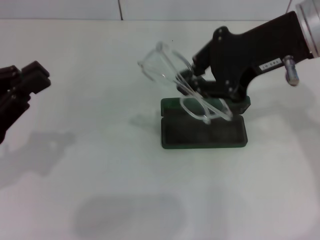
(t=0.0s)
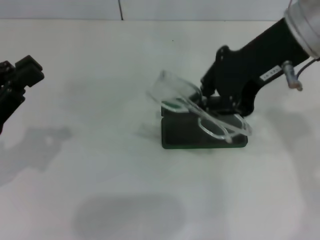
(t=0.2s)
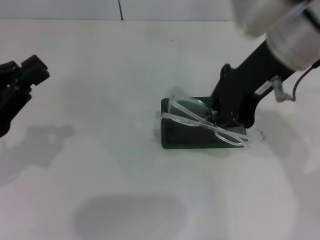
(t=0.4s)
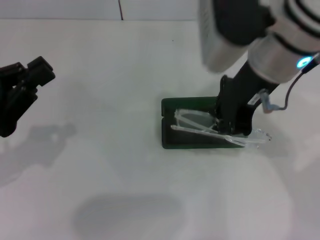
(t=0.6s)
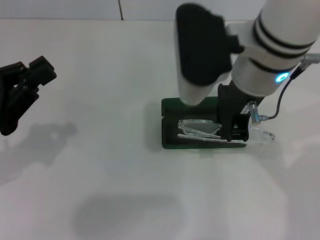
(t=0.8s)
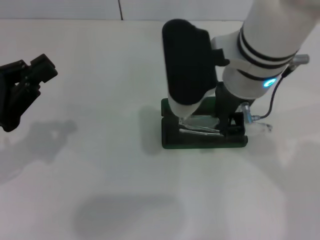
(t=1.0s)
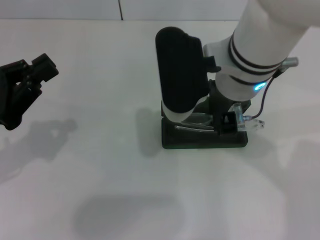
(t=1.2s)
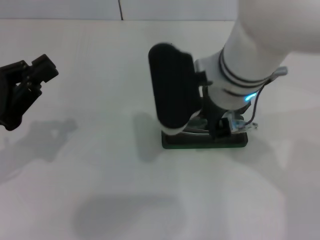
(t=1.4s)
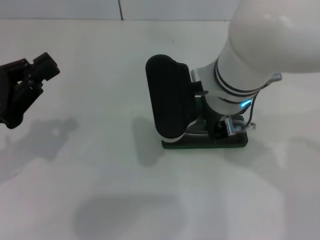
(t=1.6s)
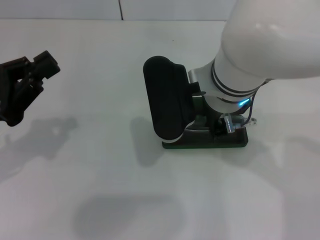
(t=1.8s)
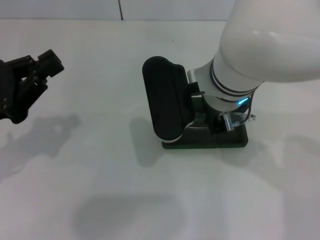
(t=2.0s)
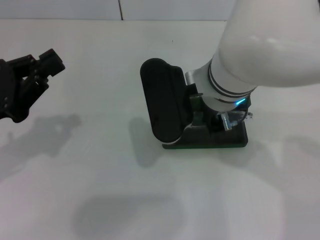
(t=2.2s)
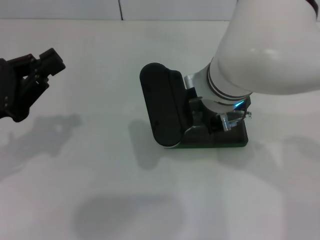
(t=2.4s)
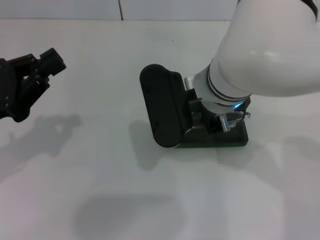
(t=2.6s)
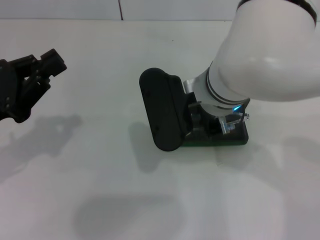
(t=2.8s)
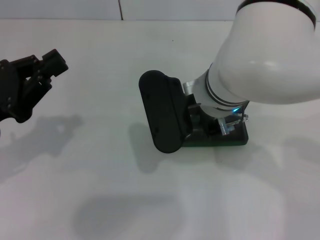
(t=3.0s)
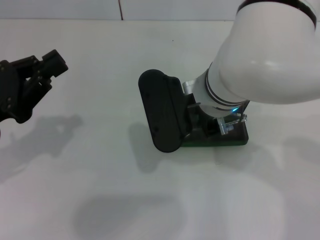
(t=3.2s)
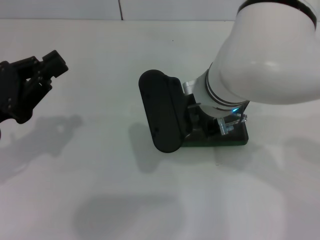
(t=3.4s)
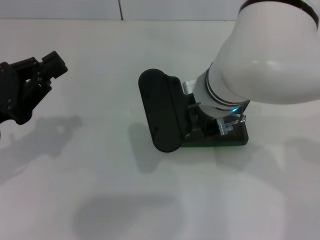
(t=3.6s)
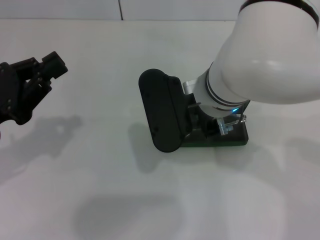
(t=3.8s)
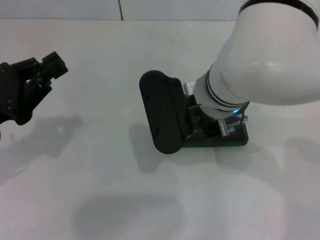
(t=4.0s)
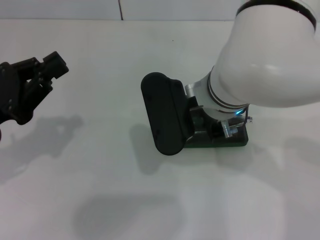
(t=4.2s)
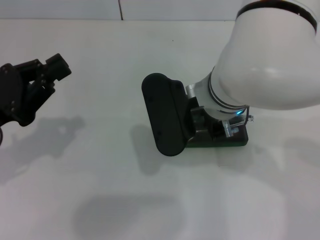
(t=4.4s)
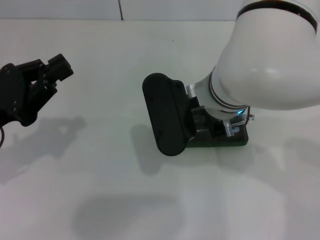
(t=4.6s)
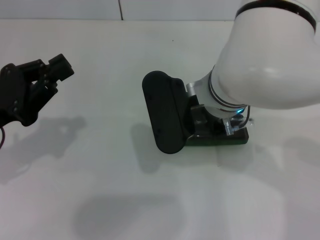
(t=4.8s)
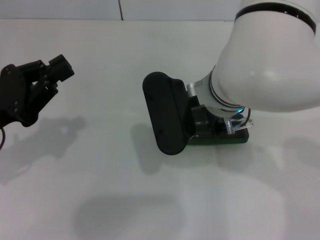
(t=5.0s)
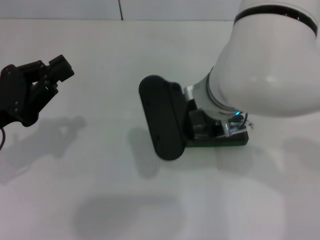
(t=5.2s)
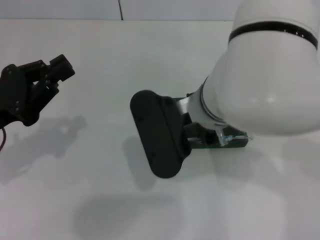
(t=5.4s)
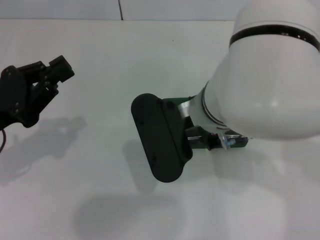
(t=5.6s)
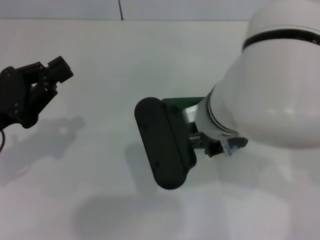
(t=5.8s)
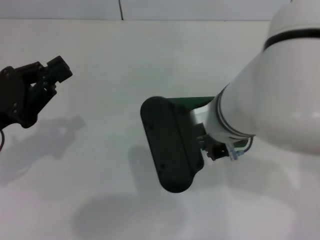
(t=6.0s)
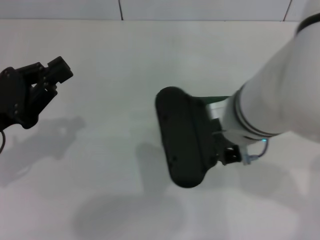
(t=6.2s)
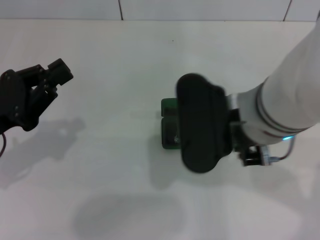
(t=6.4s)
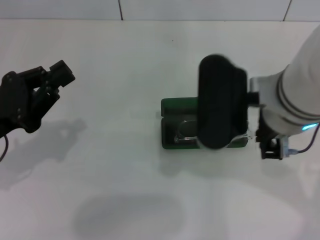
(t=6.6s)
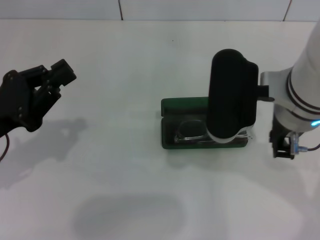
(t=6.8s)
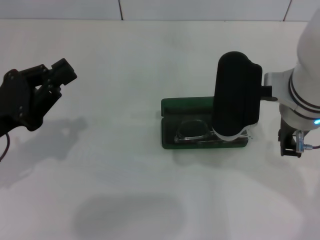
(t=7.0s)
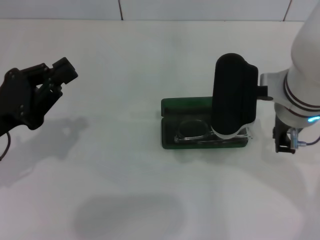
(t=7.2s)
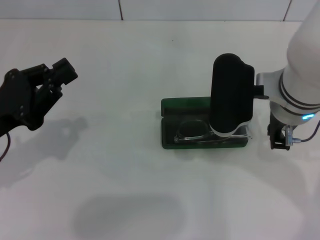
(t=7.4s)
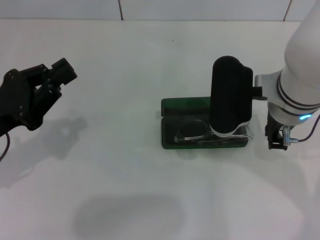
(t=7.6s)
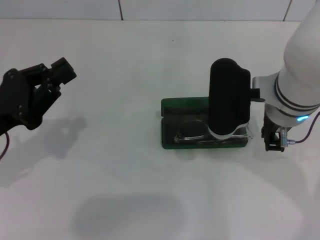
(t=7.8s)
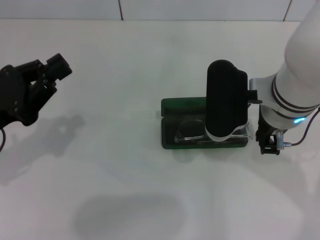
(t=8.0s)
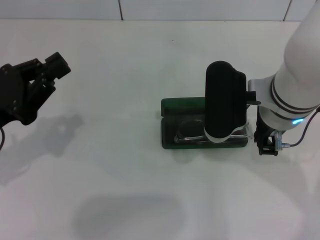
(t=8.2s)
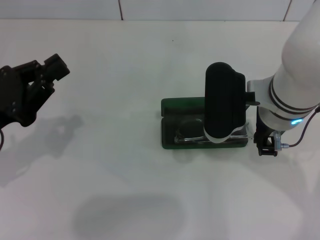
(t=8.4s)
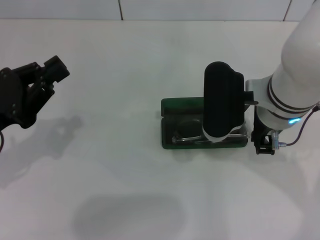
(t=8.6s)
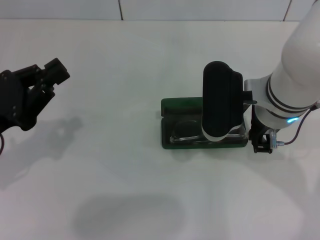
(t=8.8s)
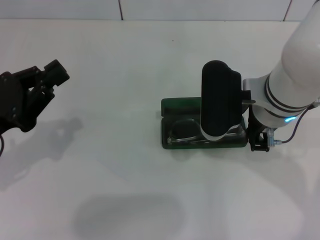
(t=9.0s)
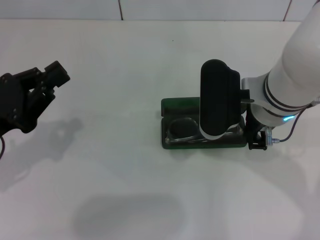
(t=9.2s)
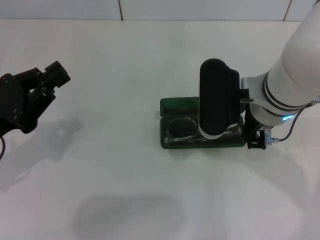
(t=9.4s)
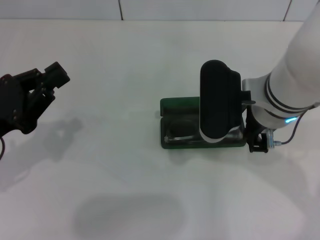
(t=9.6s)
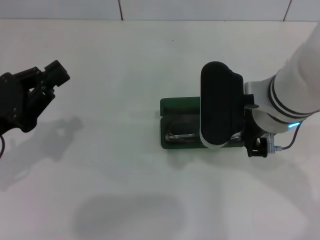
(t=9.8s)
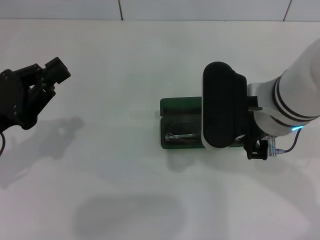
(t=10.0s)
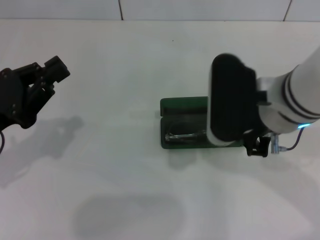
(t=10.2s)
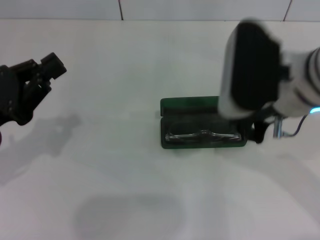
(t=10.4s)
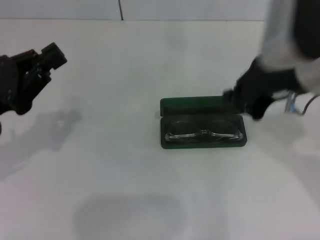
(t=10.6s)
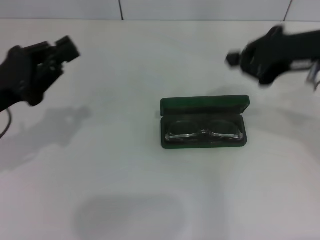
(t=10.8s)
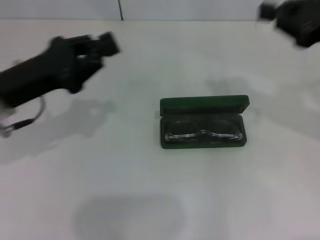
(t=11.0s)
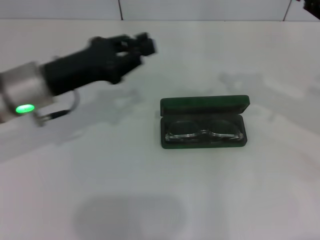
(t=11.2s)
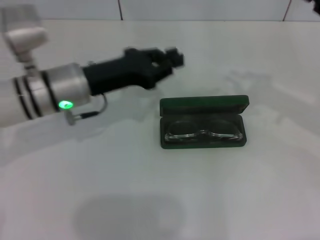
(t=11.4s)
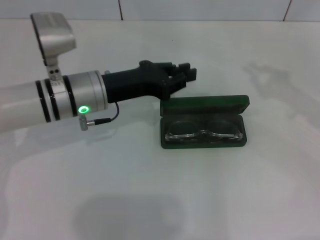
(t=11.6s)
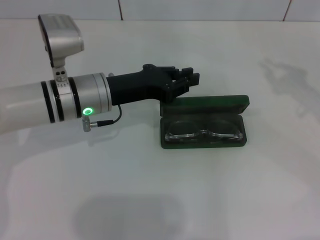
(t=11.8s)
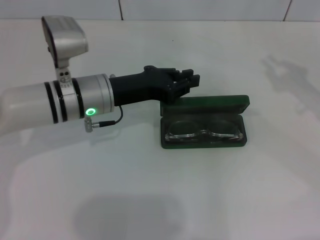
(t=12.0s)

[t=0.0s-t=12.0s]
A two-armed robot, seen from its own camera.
Step, t=0.0s to t=10.2s: Put the glasses into the case with your right hand.
t=0.0s to t=1.6s: The right gripper is displaced to the left and downward by some 15 cm.
t=1.6s to t=3.0s: The grippers move only a little.
t=3.0s to t=4.4s: The two grippers keep their place.
t=4.4s to t=6.0s: The right gripper opens up.
t=6.0s to t=7.6s: The right gripper travels to the right by about 10 cm, and closes its fingers.
t=7.6s to t=9.0s: The grippers move only a little.
t=9.0s to t=10.4s: The right gripper shifts approximately 5 cm upward.
t=10.4s to t=12.0s: The left gripper moves to the right and forward, some 20 cm; the right gripper heads to the right, covering approximately 20 cm.

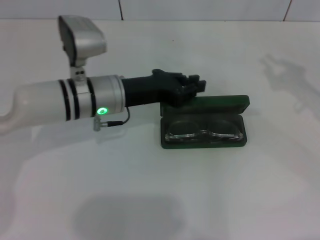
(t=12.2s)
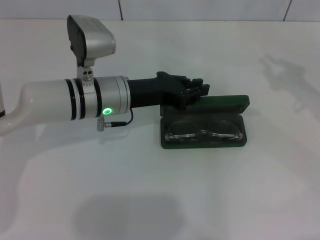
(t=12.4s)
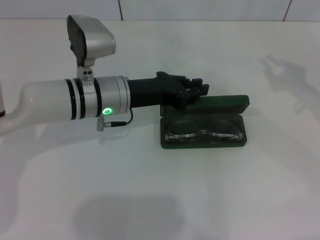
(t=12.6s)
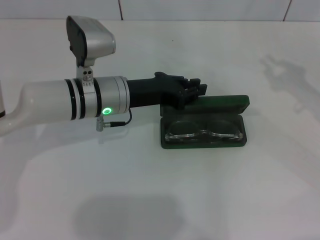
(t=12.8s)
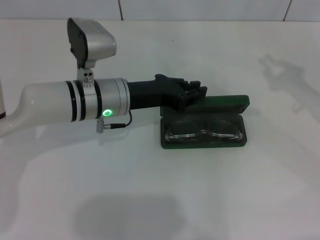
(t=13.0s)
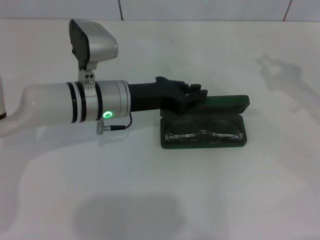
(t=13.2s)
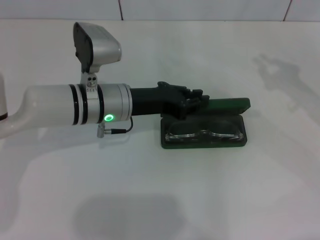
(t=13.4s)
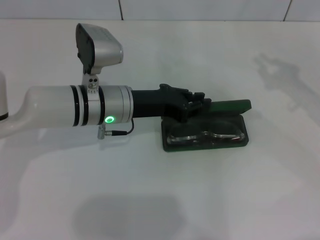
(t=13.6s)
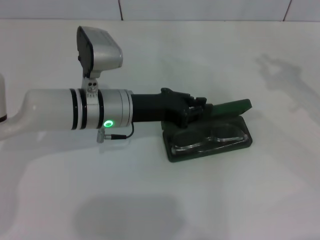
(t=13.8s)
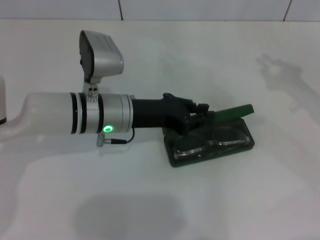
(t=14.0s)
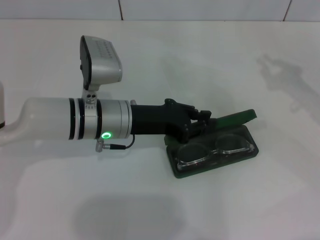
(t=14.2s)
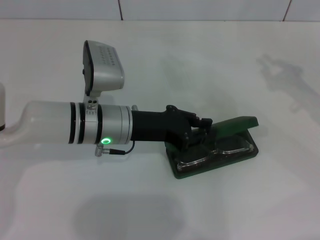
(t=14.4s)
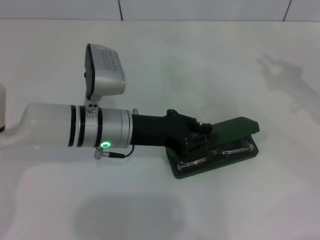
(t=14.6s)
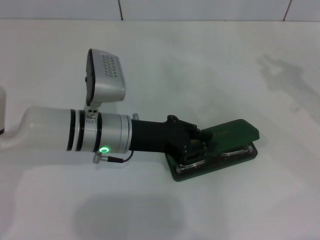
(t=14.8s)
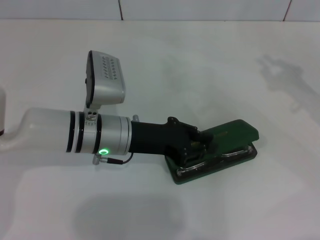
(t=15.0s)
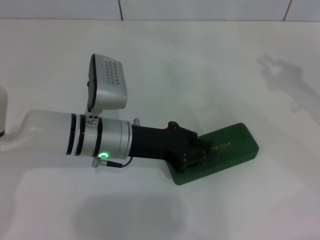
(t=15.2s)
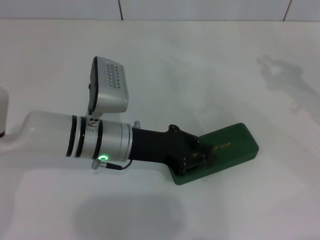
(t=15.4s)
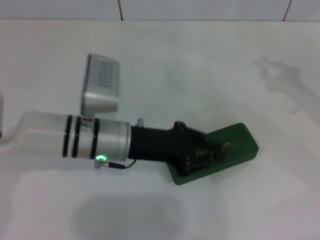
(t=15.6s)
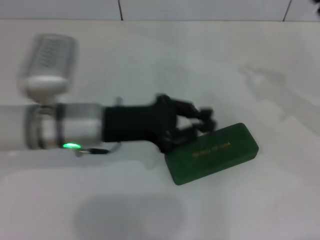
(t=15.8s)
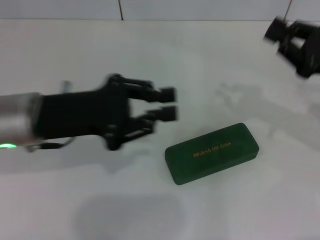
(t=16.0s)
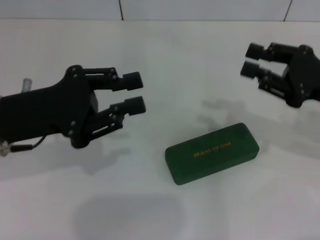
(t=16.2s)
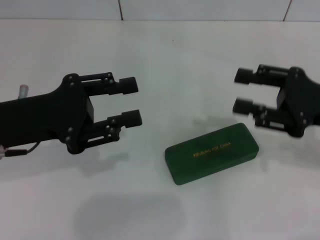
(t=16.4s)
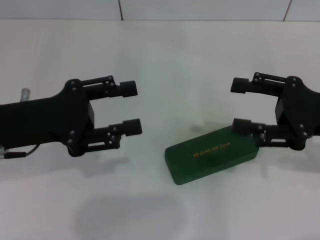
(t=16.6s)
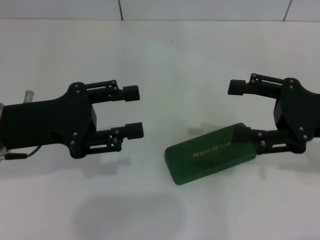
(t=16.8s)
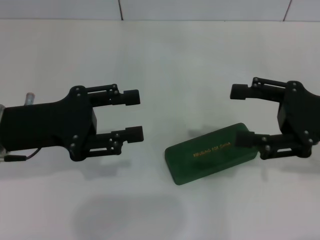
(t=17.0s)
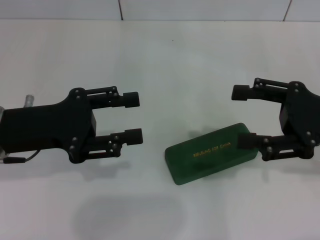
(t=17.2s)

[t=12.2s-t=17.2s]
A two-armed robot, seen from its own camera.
Step, t=12.2s to t=16.0s: Close the glasses case with your left hand.
t=12.2s to t=13.8s: The grippers stay close to where they were, moving slightly.
t=13.8s to t=15.6s: There are only small adjustments of the grippers.
t=15.6s to t=17.2s: The left gripper shifts some 15 cm to the left and upward, and opens; the right gripper goes about 5 cm to the left, and opens its fingers.
